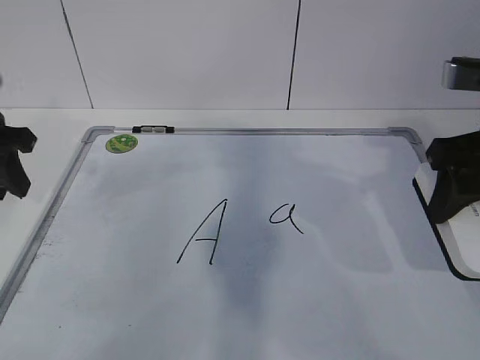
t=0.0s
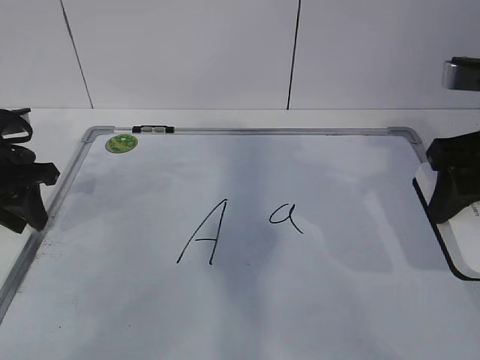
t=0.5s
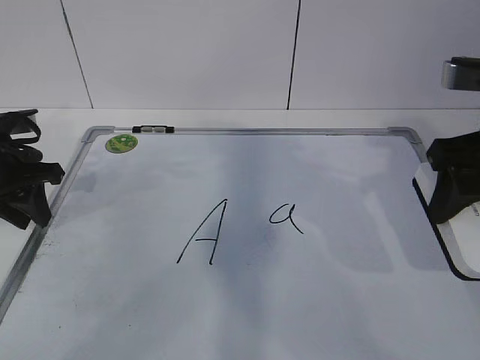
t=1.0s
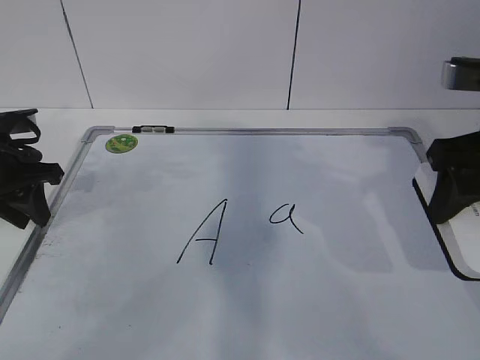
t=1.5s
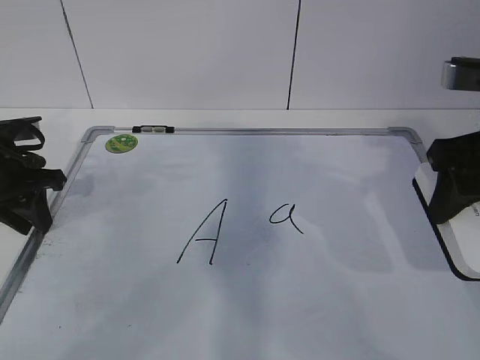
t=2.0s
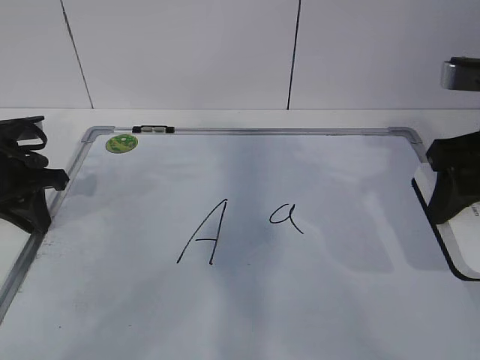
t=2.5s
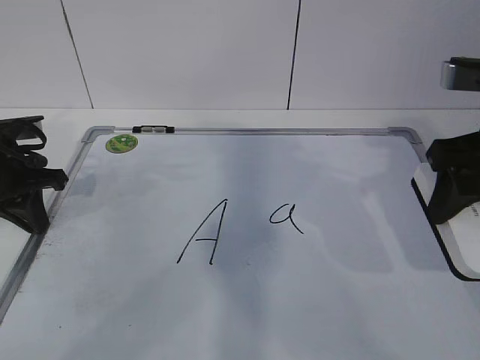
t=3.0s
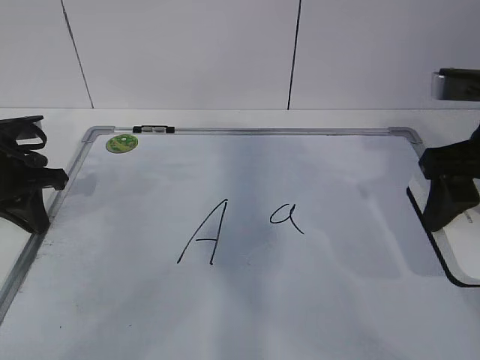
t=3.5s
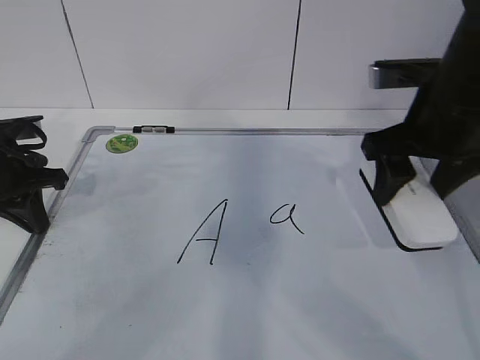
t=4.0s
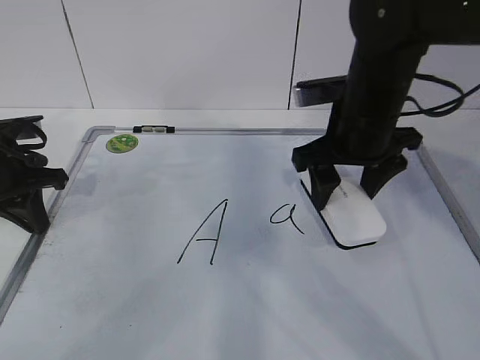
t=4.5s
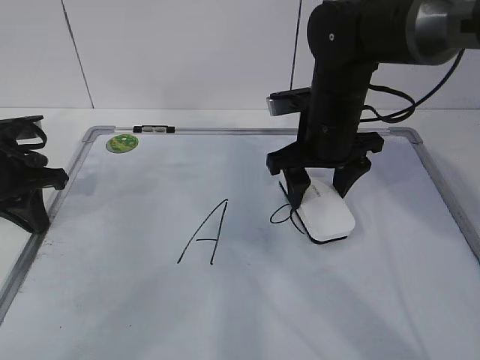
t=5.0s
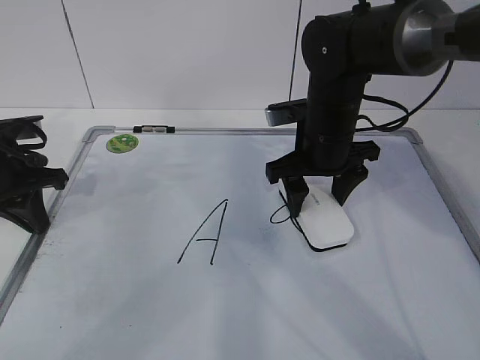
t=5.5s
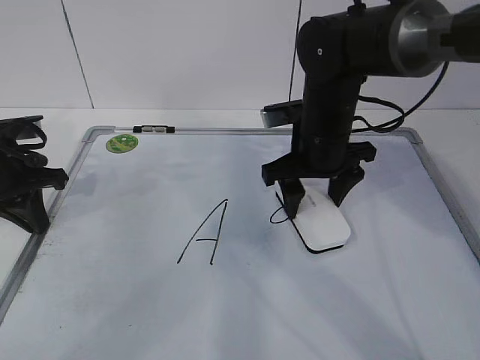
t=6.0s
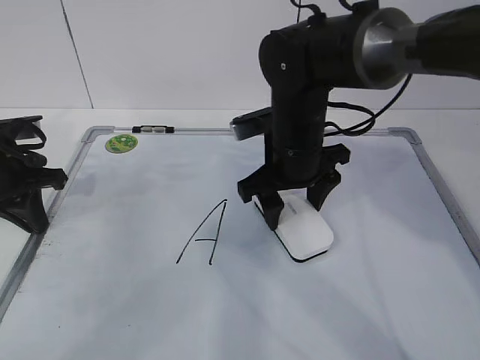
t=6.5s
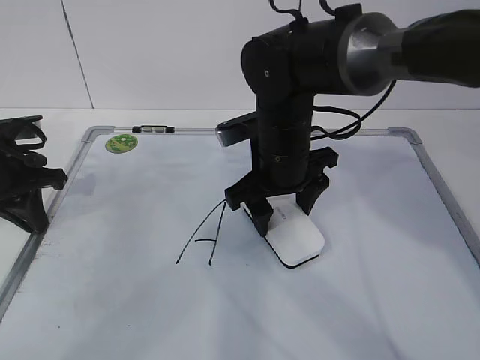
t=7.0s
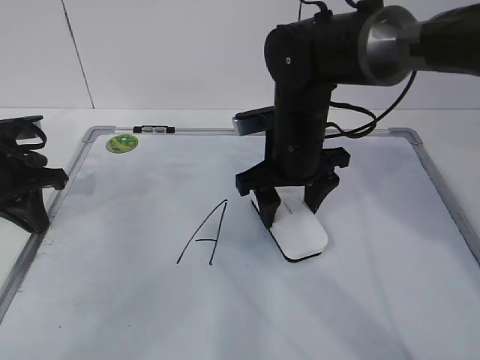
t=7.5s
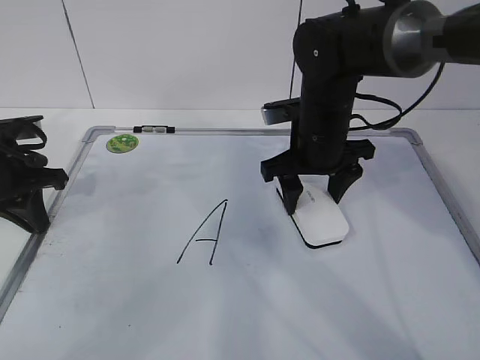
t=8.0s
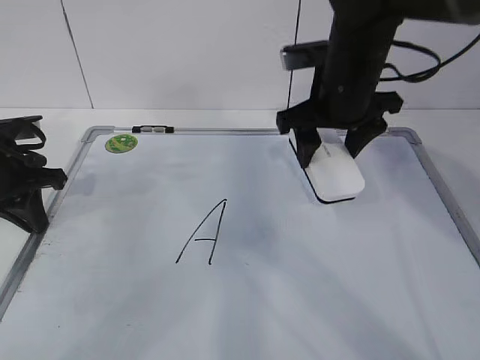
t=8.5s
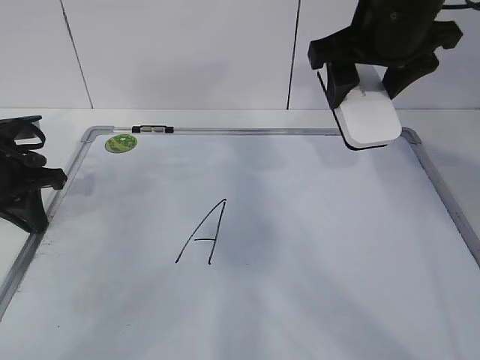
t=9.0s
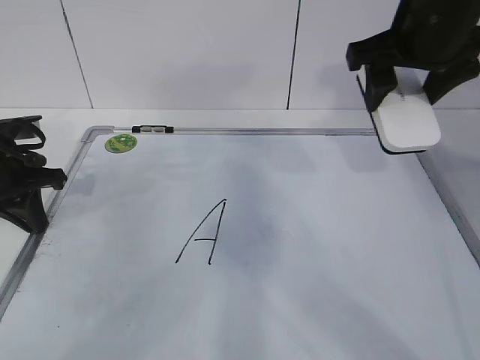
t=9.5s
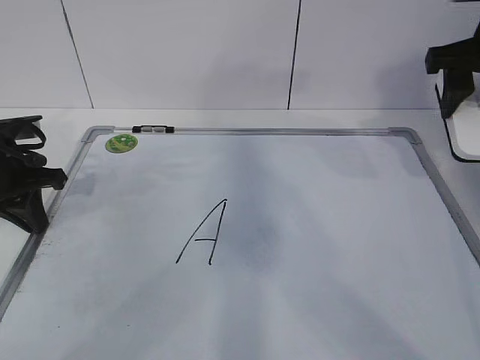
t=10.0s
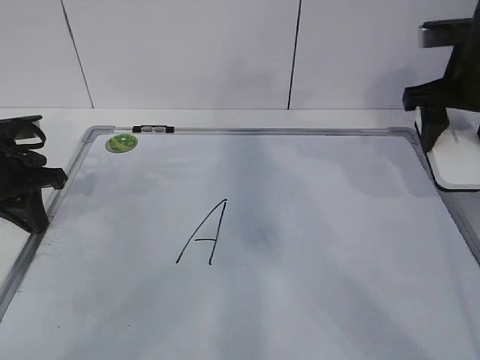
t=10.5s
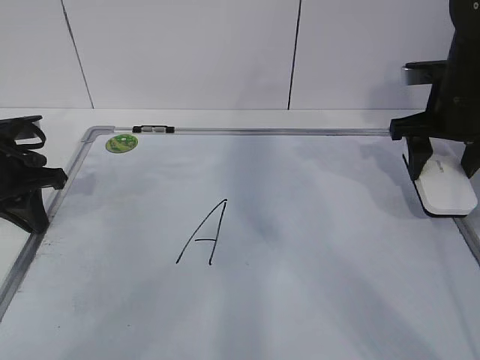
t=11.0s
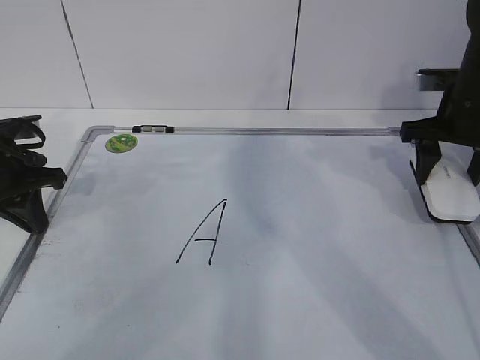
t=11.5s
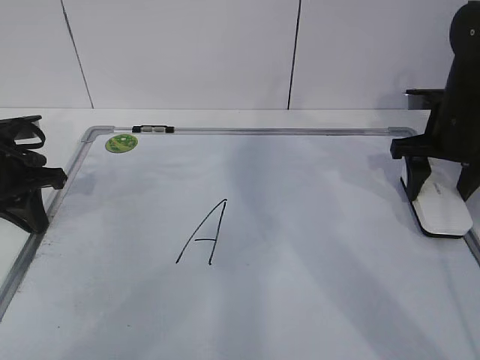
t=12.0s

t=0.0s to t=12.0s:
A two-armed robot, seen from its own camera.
Task of the whole recording: pick up the eraser on the blackboard and erase the letter "a".
Step, t=0.0s to t=4.0s: Erase the letter a with your right hand.
Step, t=4.5s to t=9.0s: Put down the eraser with your right hand.
t=0.0s to t=2.0s: The left gripper heads downward, covering some 5 cm.
t=2.0s to t=4.0s: The left gripper closes. Meanwhile the right gripper heads forward, covering some 5 cm.
t=4.0s to t=6.0s: The right gripper is displaced to the left, downward and forward by some 15 cm.
t=6.0s to t=8.0s: The grippers make only small movements.
t=8.0s to t=10.0s: The right gripper shifts some 20 cm to the right and upward.
t=10.0s to t=12.0s: The right gripper goes approximately 15 cm downward.

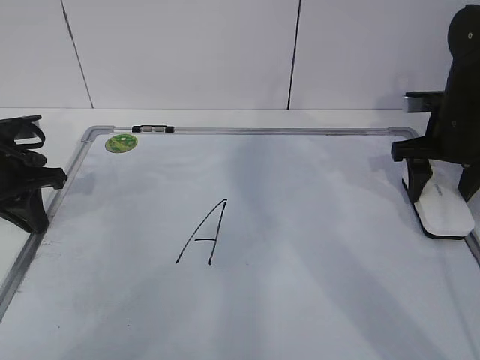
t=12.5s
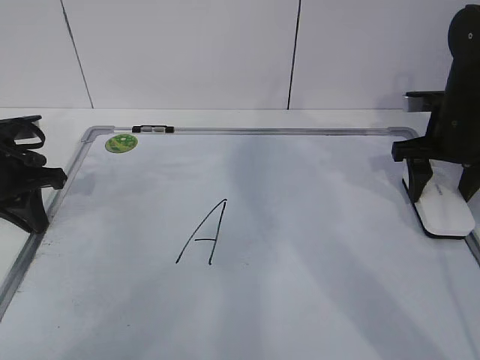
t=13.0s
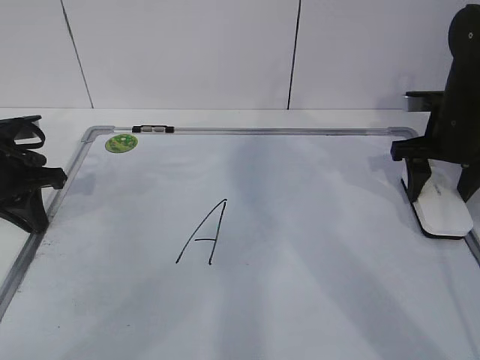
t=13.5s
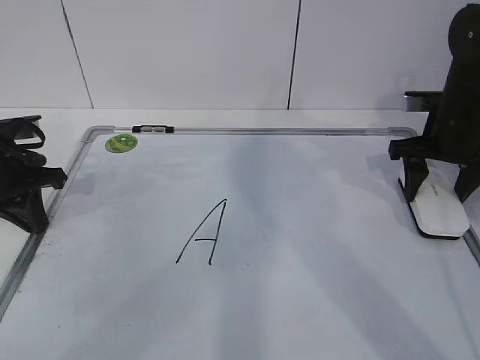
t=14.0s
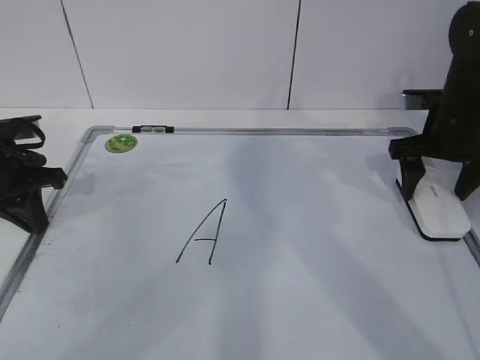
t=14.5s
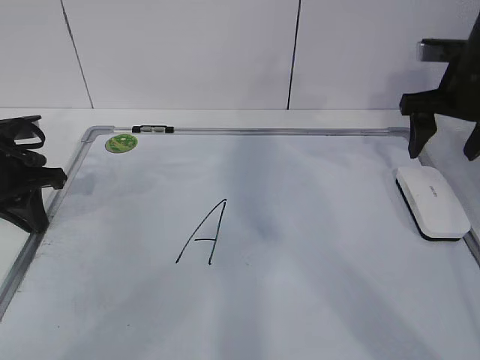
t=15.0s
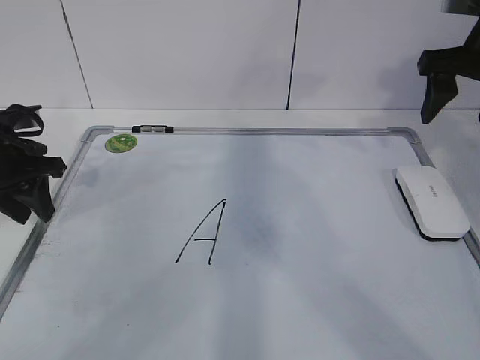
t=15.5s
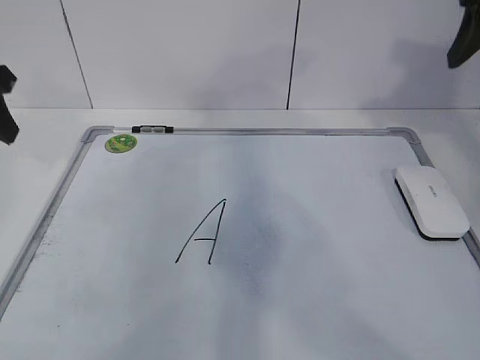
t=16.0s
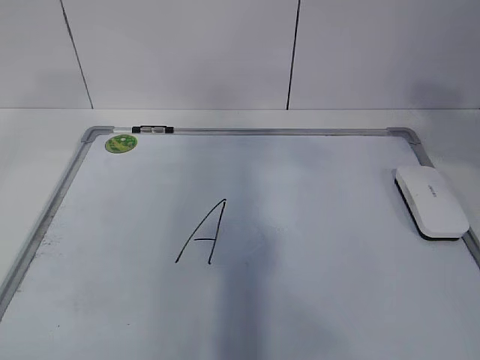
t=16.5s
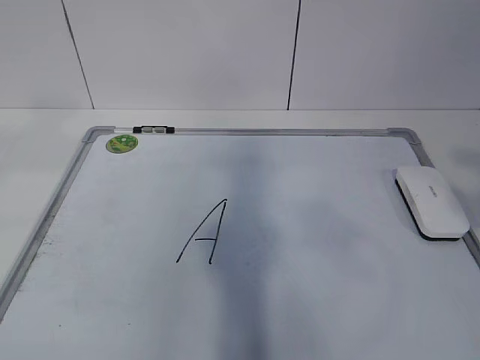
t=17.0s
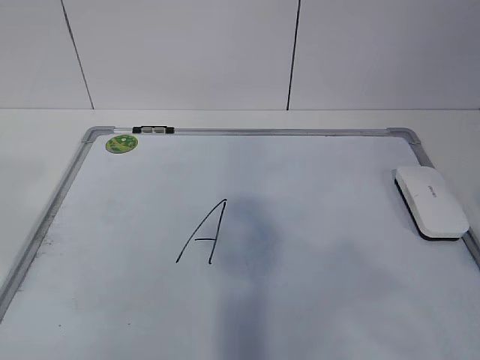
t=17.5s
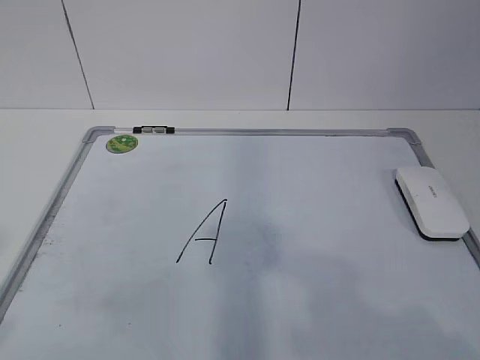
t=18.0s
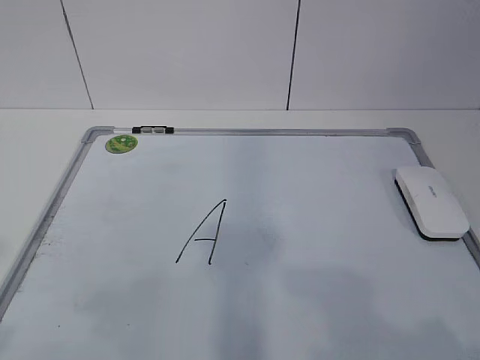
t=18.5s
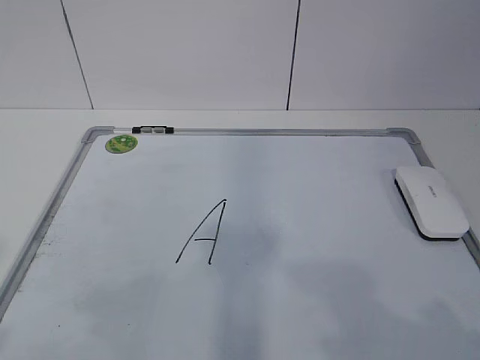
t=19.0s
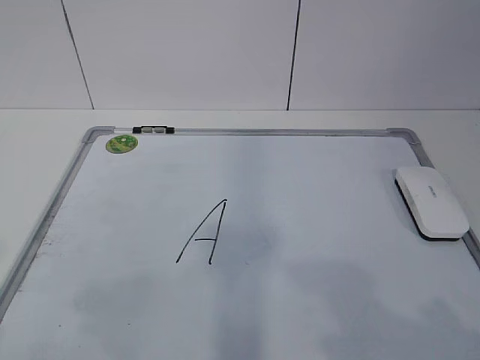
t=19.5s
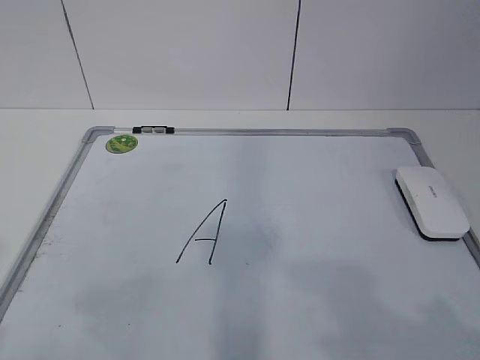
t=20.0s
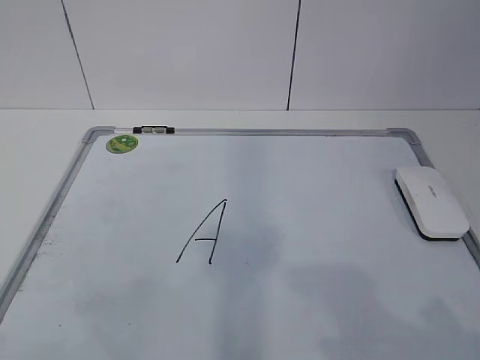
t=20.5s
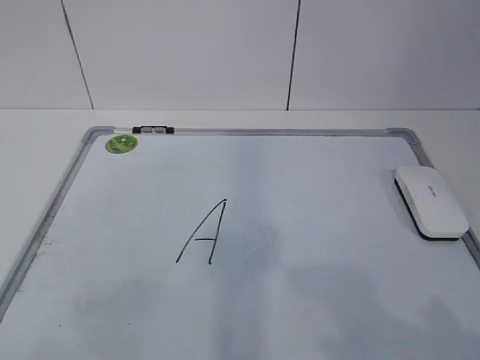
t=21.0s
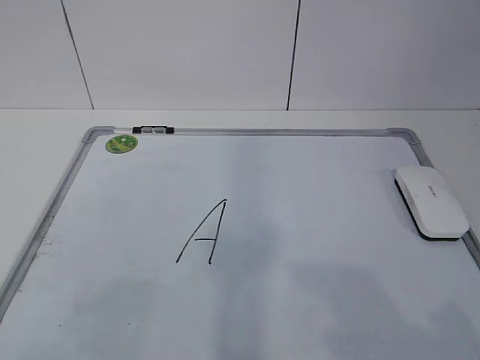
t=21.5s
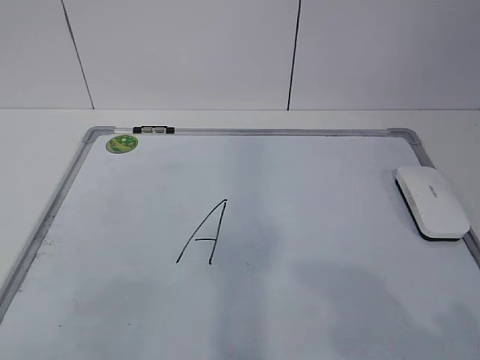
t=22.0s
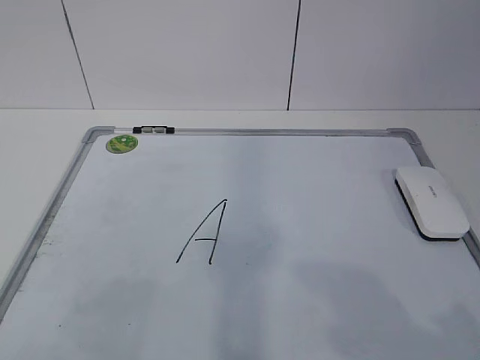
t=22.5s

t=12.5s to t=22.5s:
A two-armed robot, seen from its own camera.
Task of the whole recording: pick up the eraser on the blackboard and erase the letter "a".
t=12.5s to t=14.5s: The right gripper opens its fingers.
t=14.5s to t=16.5s: The right gripper moves backward and upward, some 30 cm, while the left gripper shifts about 25 cm upward and backward, and opens its fingers.
t=16.5s to t=18.5s: Both grippers travel together backward and downward, about 25 cm.
